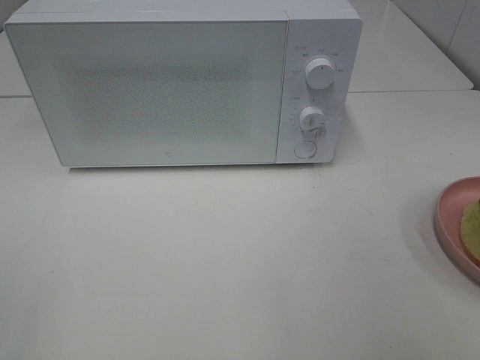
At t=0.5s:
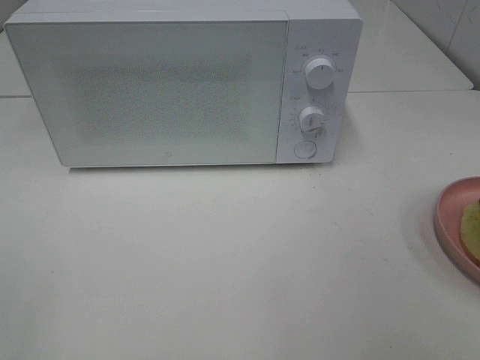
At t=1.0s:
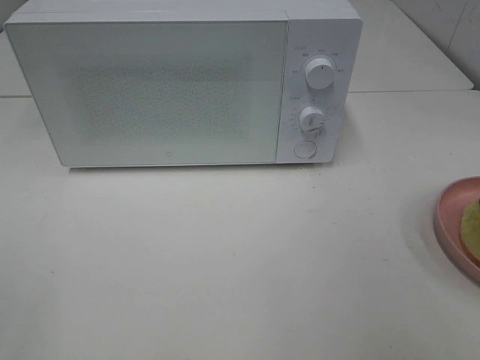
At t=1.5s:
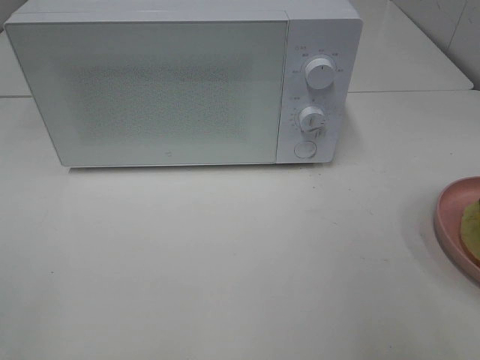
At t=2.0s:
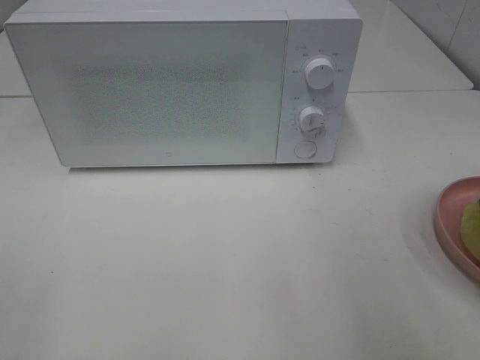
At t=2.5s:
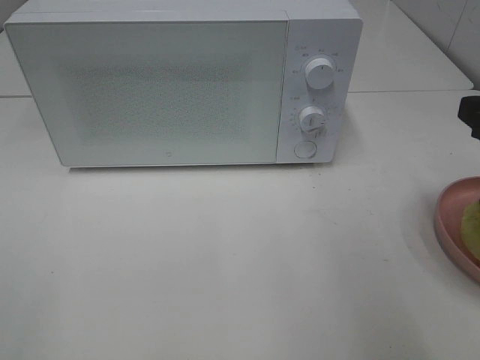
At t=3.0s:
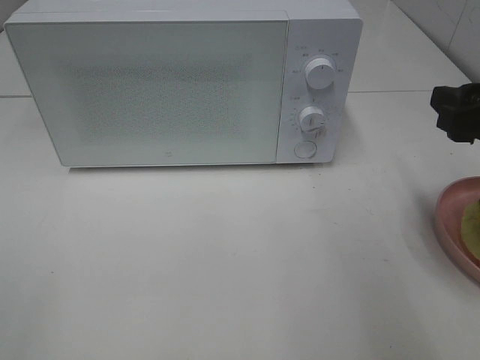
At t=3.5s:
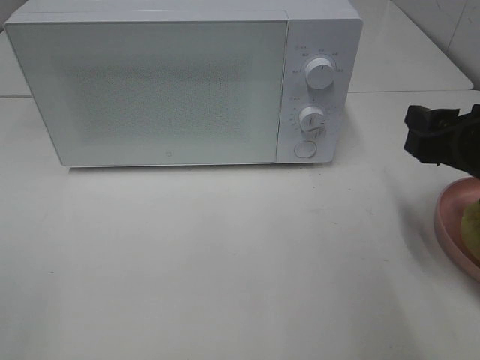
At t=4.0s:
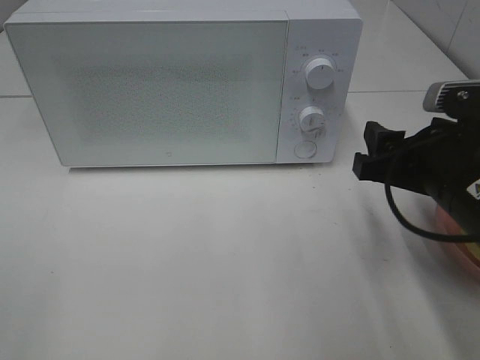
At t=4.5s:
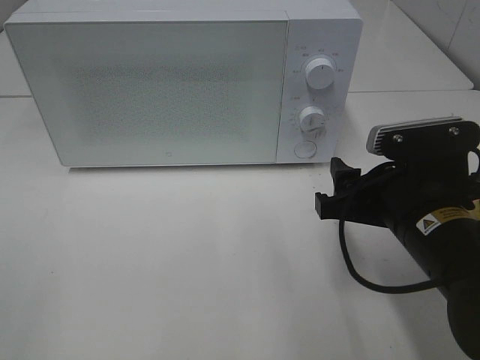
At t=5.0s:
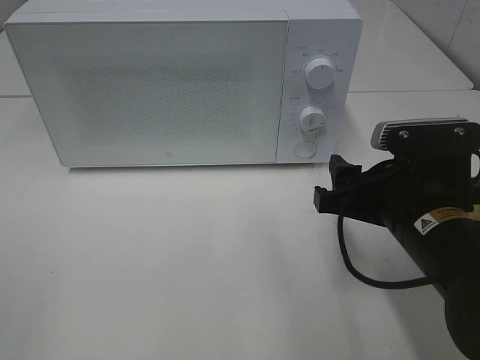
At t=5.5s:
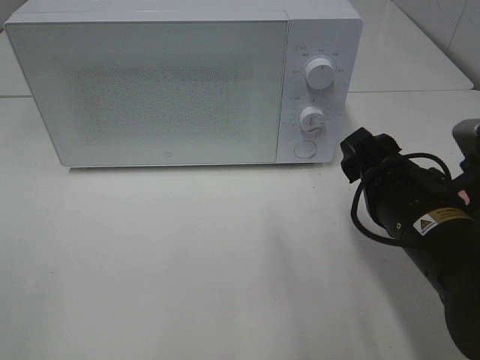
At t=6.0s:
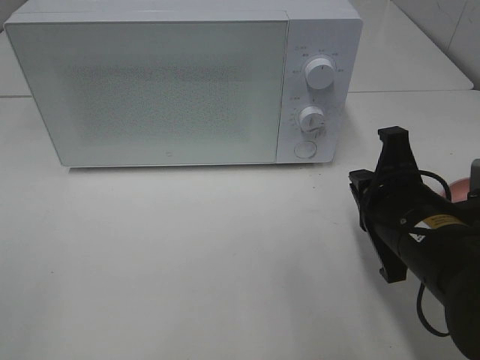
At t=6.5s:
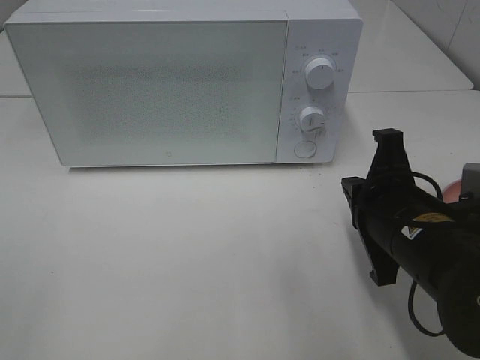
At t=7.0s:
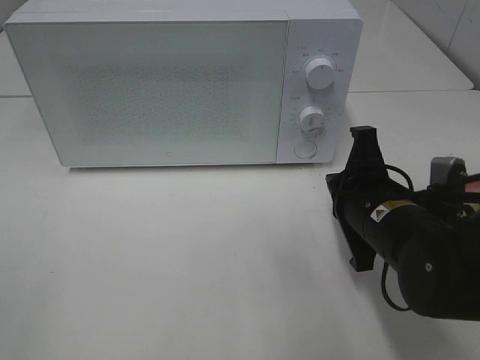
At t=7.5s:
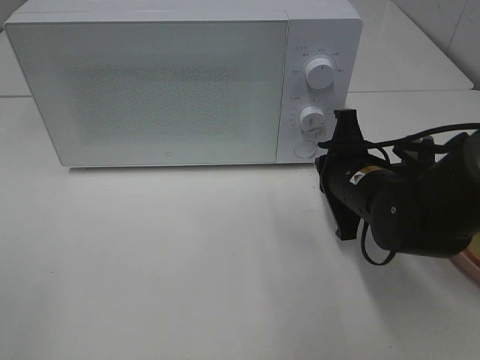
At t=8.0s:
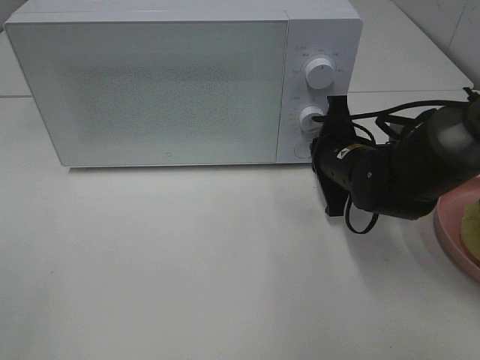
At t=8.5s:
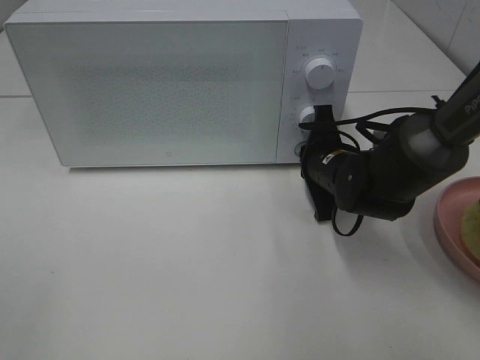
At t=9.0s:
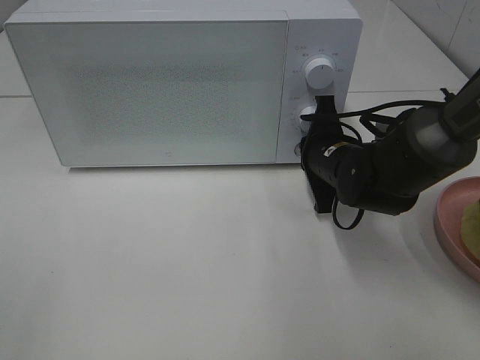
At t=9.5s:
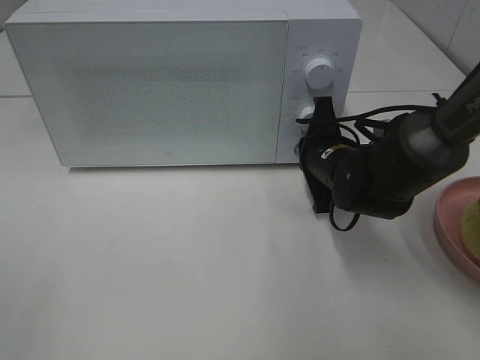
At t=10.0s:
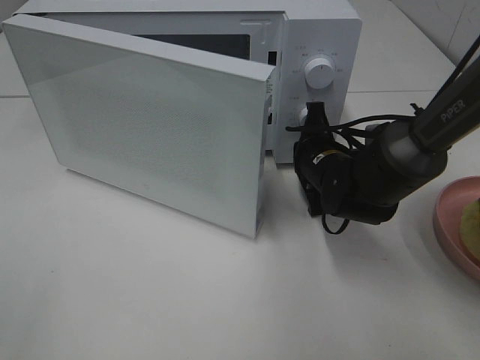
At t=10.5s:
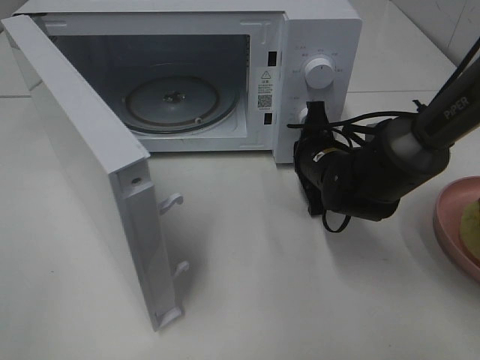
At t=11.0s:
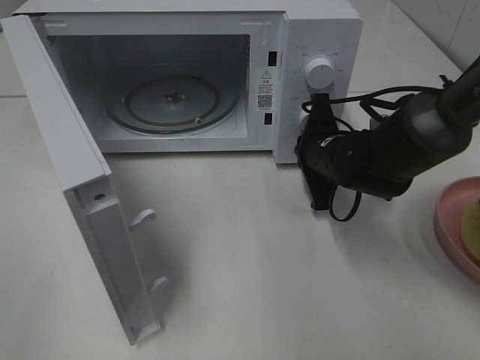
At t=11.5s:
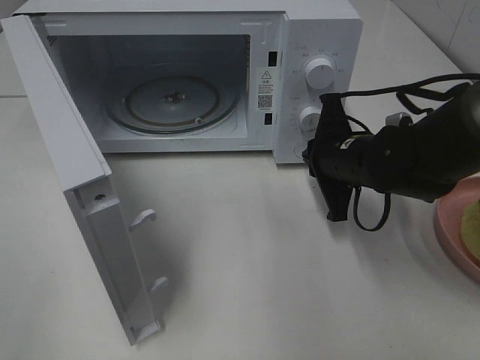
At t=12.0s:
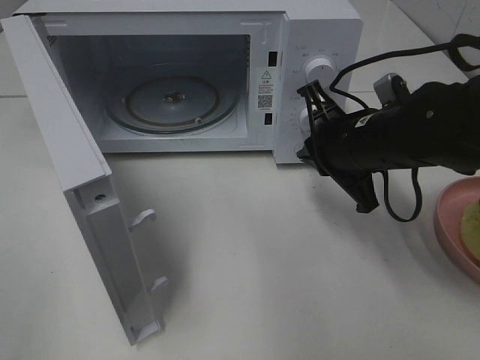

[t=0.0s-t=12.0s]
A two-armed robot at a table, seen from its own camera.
Task of the whole recording: Heat Sandwich.
Step, t=0.0s to t=11.5s: Right hand: press the switch.
t=2.0s to t=4.0s: The right gripper shifts about 15 cm downward, to the left and forward.
t=4.0s to t=6.0s: The right gripper moves approximately 5 cm, and closes its fingers.
t=6.0s to t=8.0s: The right gripper travels forward by approximately 15 cm.
t=8.0s to t=10.0s: The grippers make only small movements.
t=10.0s to t=12.0s: The right gripper heads upward and backward, covering about 10 cm.

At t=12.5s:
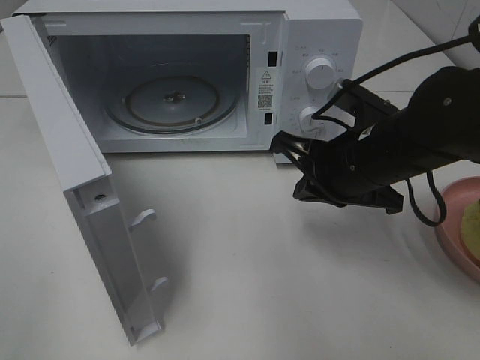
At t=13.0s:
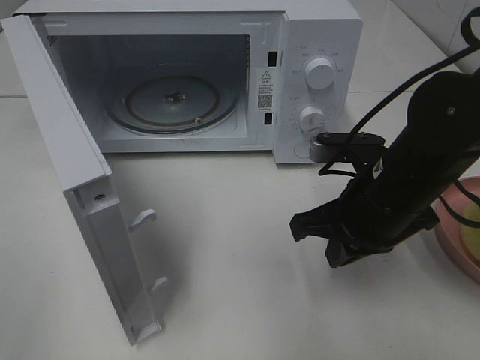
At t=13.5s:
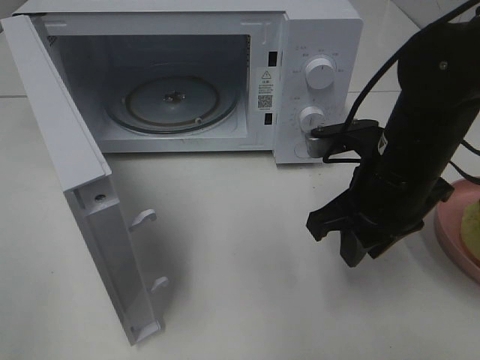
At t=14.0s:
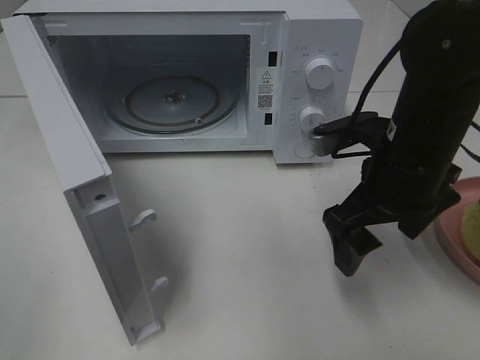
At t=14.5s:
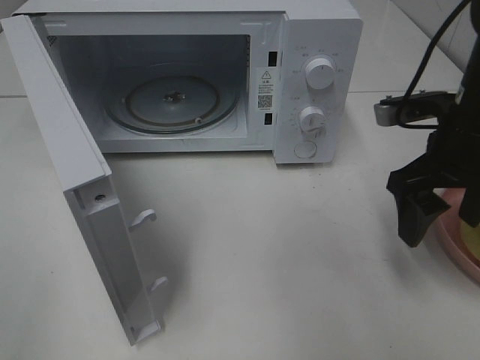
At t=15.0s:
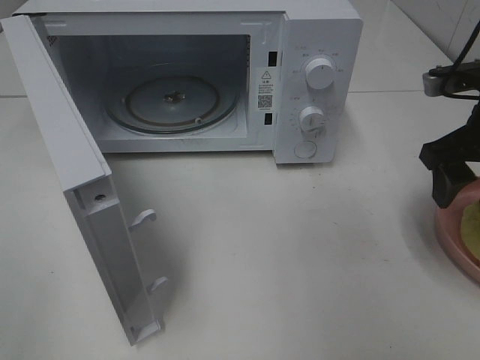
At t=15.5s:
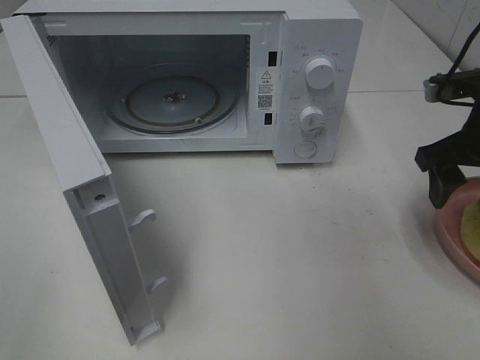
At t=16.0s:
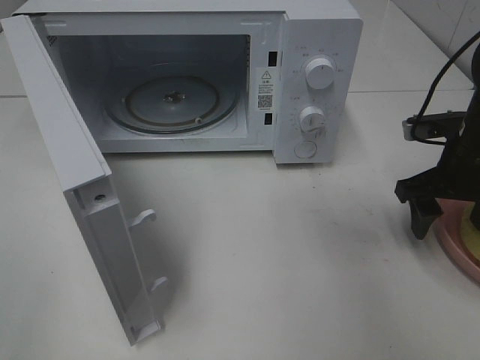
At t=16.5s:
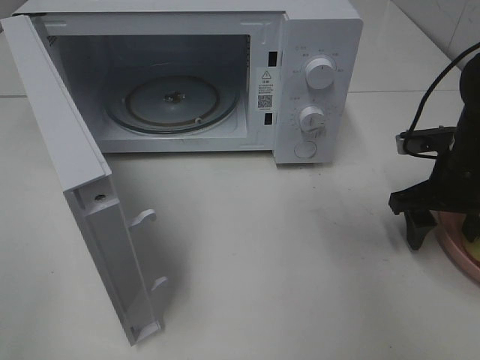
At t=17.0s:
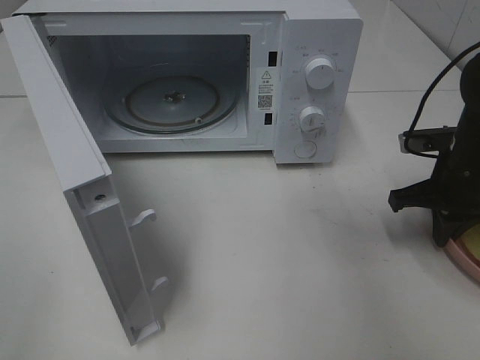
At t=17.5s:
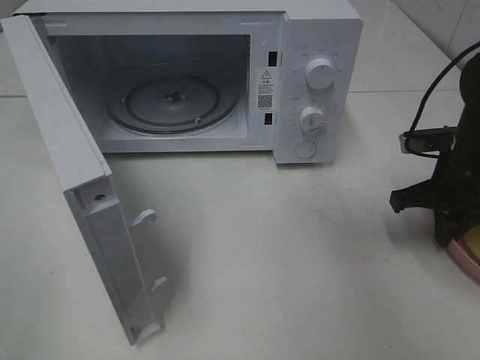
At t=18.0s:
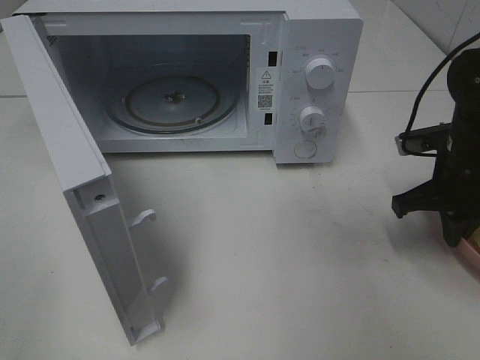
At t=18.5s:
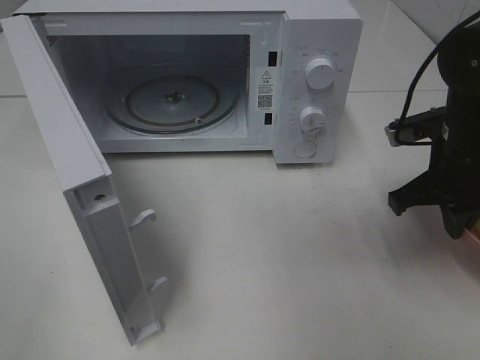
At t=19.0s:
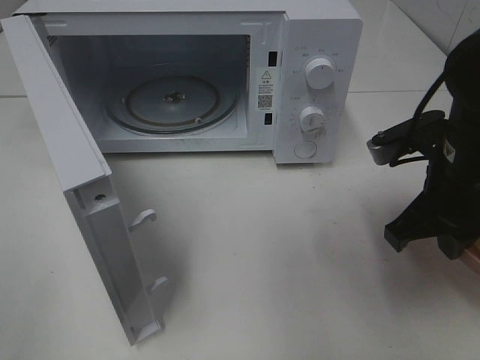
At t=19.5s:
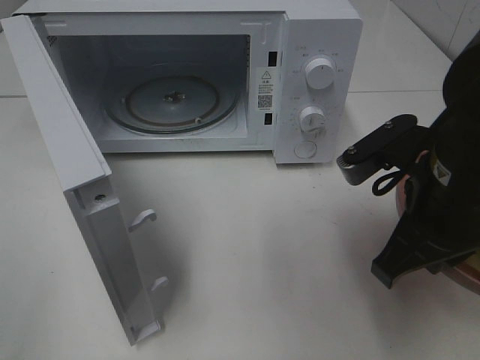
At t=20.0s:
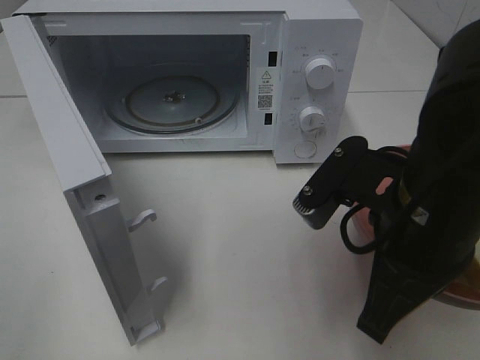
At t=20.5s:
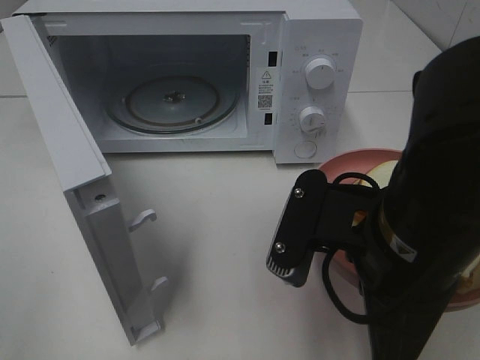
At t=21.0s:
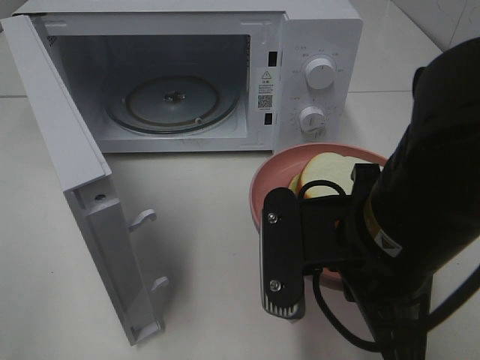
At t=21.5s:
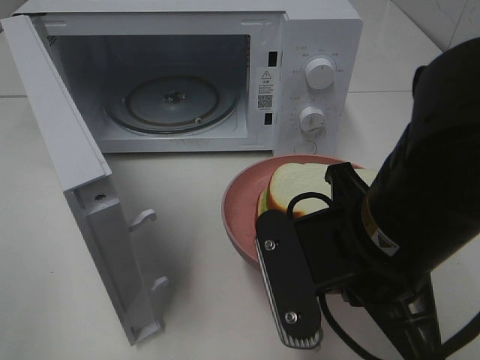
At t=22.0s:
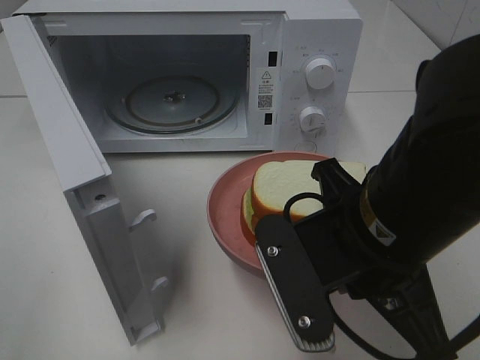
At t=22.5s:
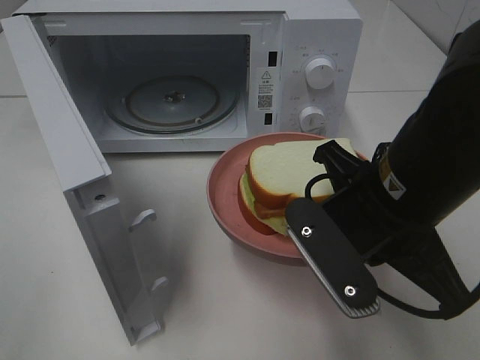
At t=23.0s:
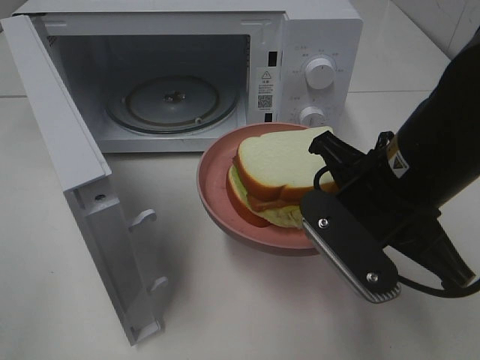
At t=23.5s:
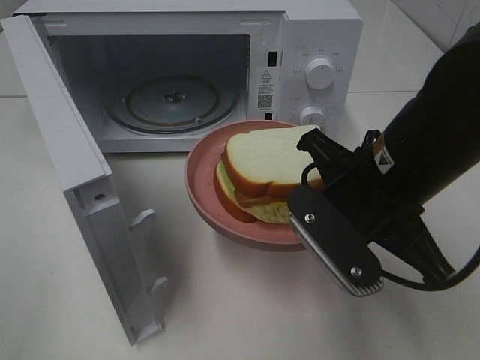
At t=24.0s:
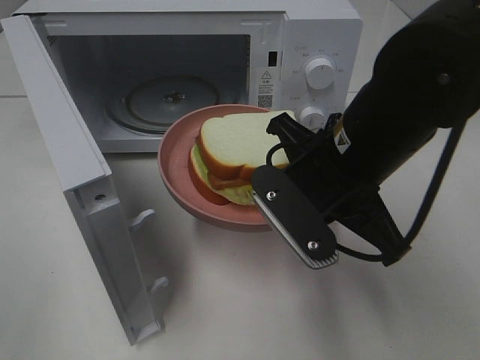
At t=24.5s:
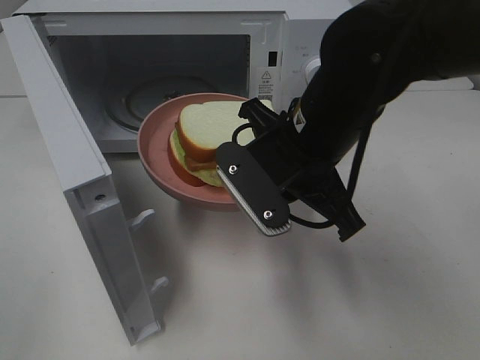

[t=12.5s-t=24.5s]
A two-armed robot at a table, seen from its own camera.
Task of the whole recording: Heat Sandwich.
Step, t=12.5s to t=17.5s: Right hand: grab the plate with the sandwich.
t=12.5s to t=14.5s: The right gripper travels to the right by roughly 10 cm, and opens its fingers.
t=14.5s to t=16.5s: The right gripper shifts roughly 10 cm downward and to the right.
t=16.5s to t=18.5s: The right gripper shifts by roughly 5 cm, and closes.
t=18.5s to t=20.5s: The right gripper goes roughly 20 cm backward and to the left.
t=22.5s to t=24.5s: The right gripper heads forward and to the left, covering approximately 10 cm.

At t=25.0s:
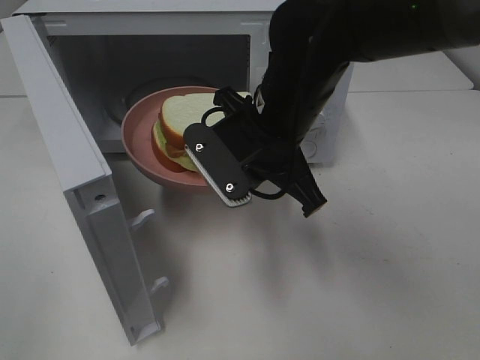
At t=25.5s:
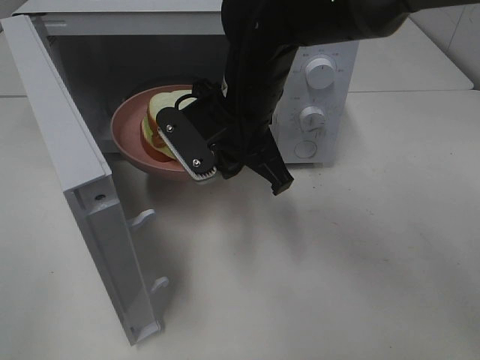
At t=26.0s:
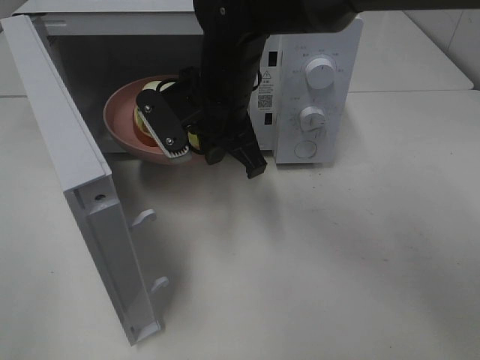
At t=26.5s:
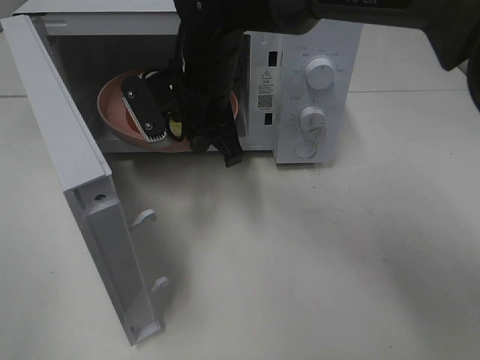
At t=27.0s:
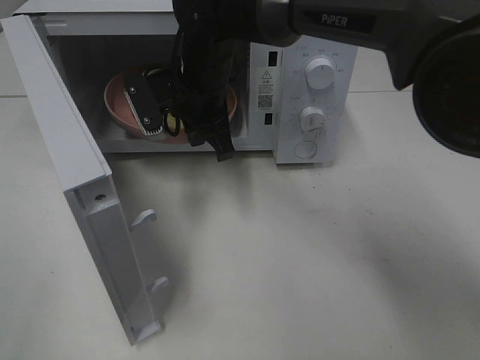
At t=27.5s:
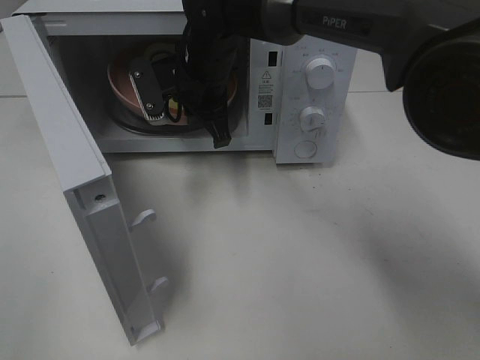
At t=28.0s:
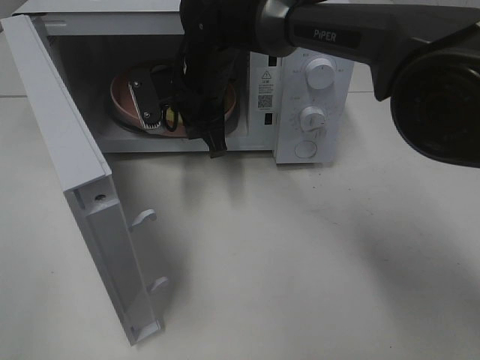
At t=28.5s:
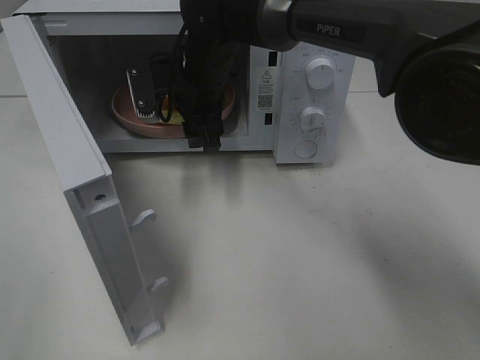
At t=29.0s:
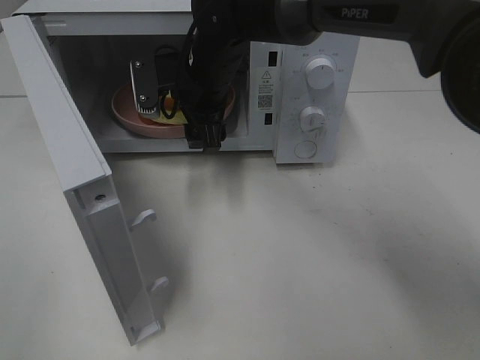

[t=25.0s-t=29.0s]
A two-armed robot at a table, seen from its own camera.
Task of the whole recording: Heat Sandwich.
t=25.0s to t=27.0s: The right gripper travels forward and to the left by roughly 15 cm.
t=27.0s to t=29.0s: The right gripper opens up.
